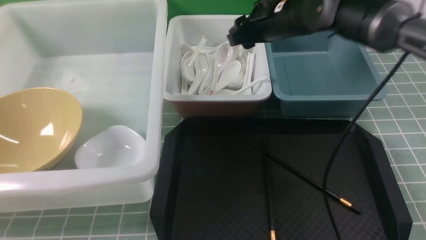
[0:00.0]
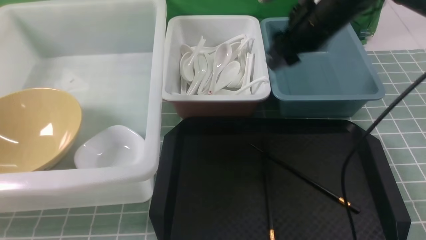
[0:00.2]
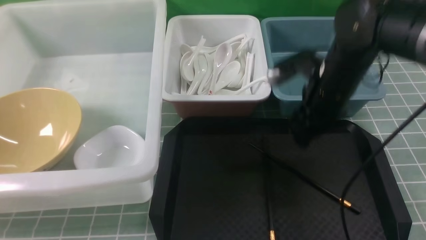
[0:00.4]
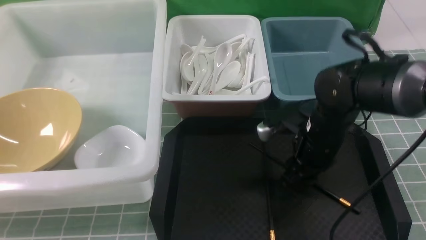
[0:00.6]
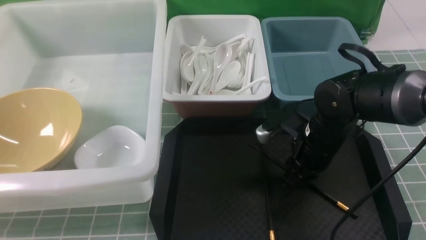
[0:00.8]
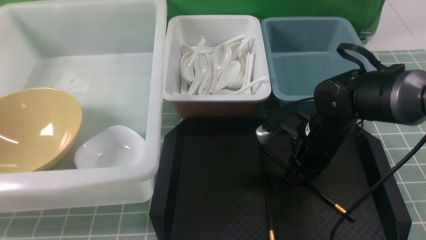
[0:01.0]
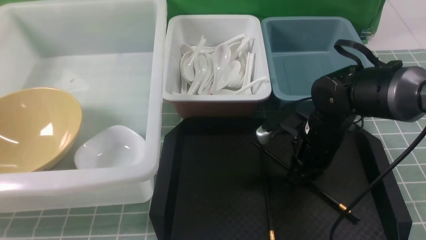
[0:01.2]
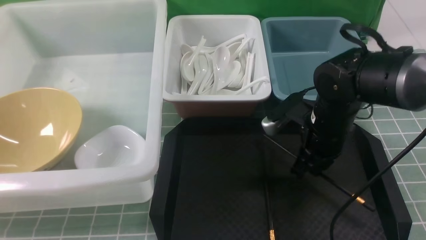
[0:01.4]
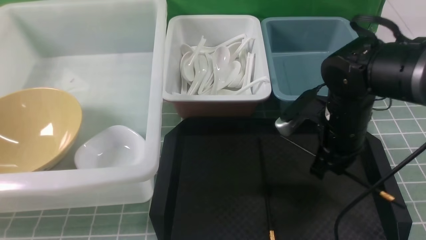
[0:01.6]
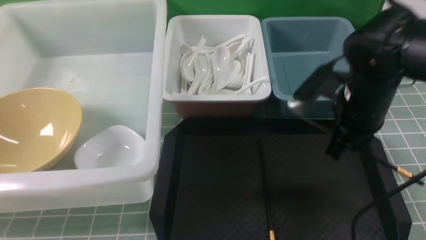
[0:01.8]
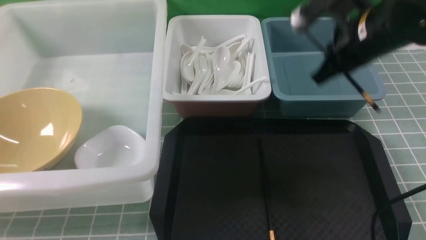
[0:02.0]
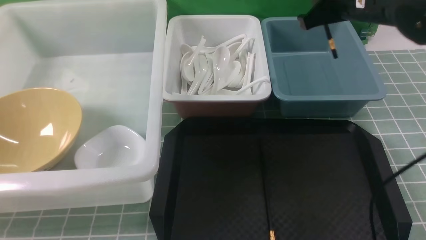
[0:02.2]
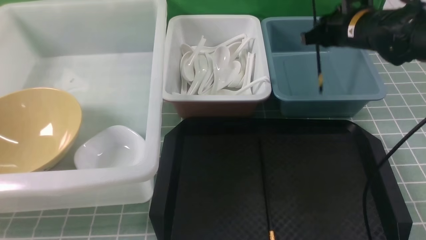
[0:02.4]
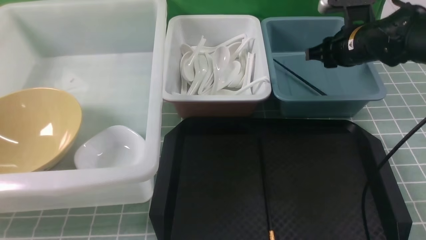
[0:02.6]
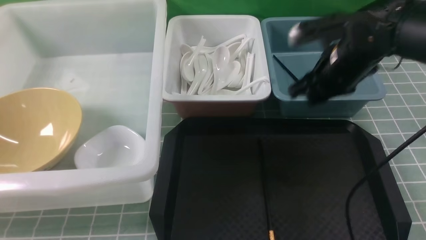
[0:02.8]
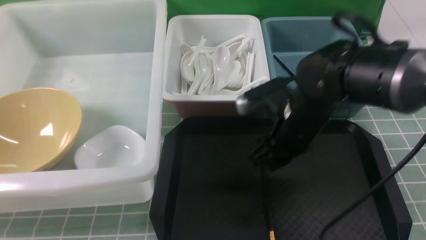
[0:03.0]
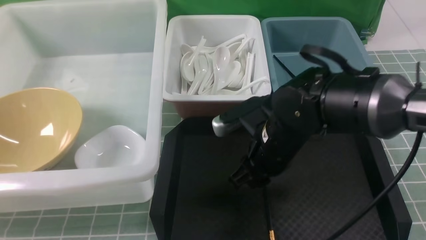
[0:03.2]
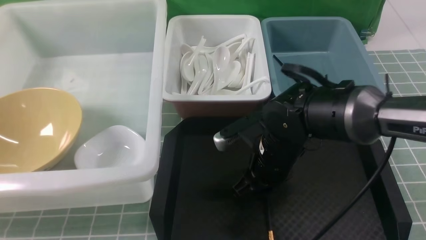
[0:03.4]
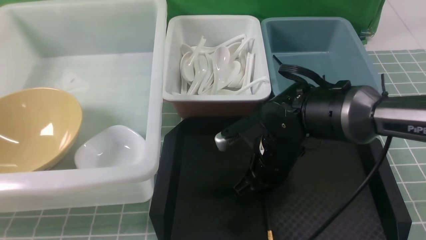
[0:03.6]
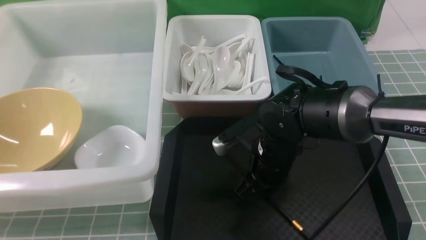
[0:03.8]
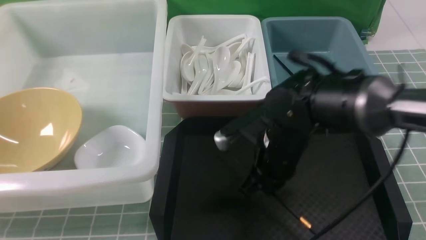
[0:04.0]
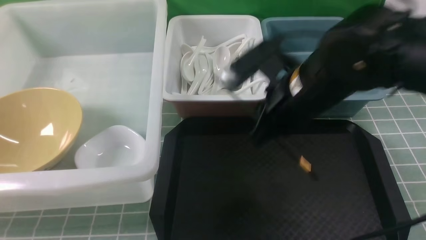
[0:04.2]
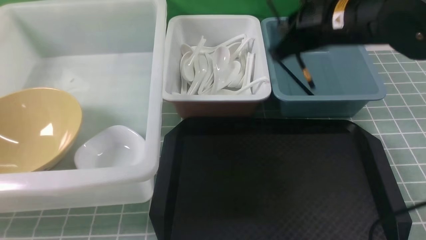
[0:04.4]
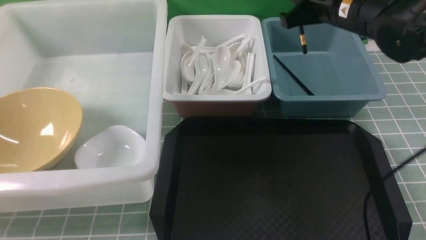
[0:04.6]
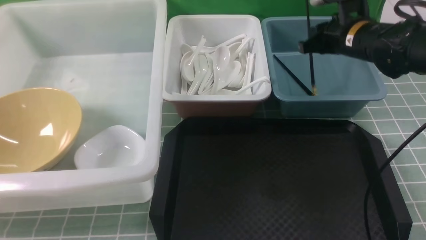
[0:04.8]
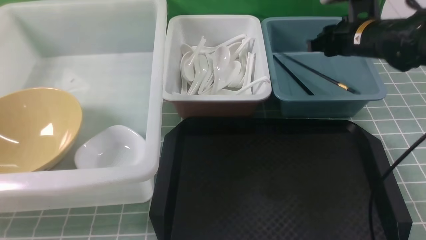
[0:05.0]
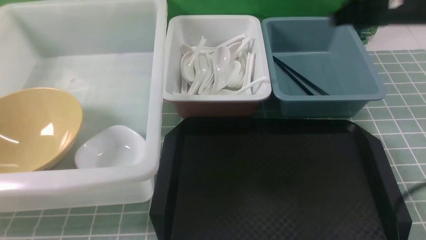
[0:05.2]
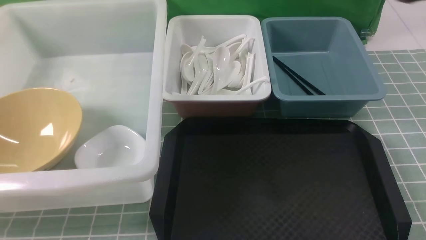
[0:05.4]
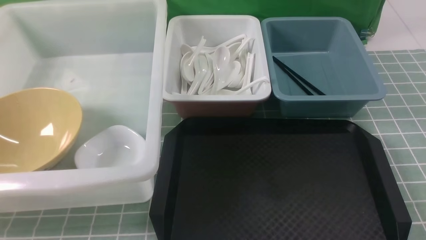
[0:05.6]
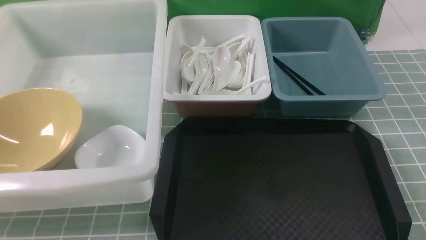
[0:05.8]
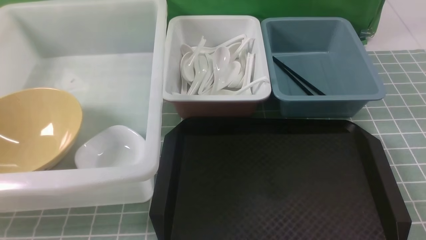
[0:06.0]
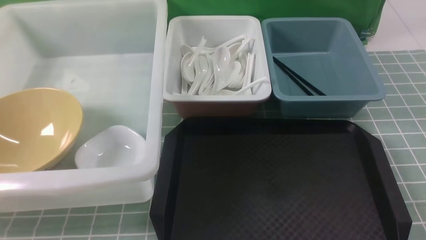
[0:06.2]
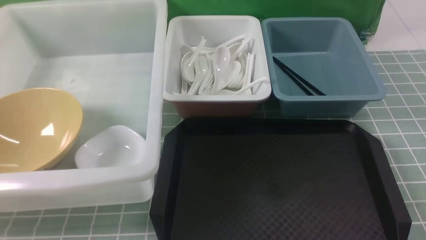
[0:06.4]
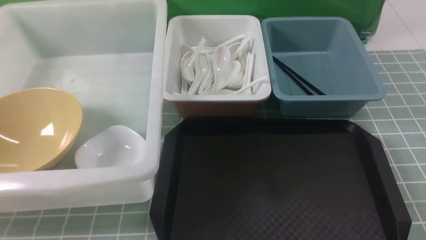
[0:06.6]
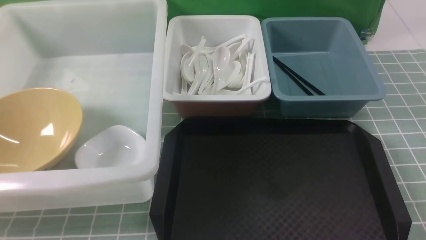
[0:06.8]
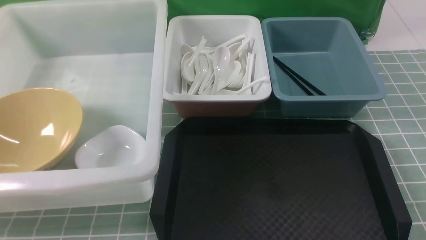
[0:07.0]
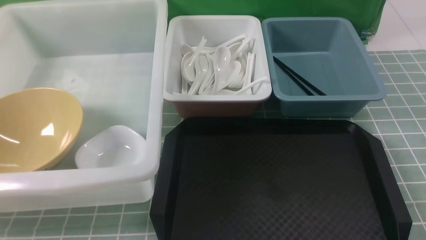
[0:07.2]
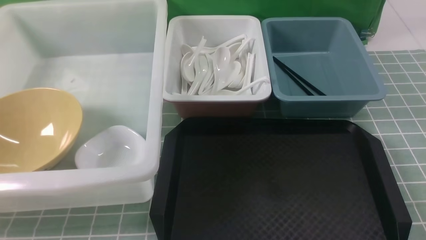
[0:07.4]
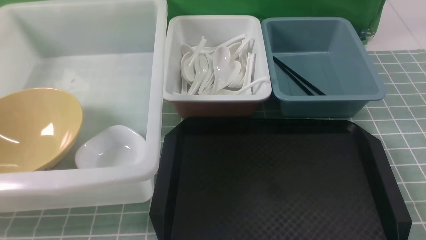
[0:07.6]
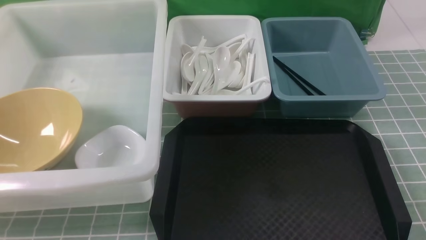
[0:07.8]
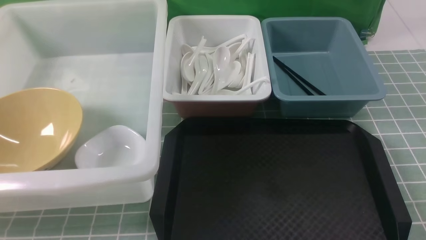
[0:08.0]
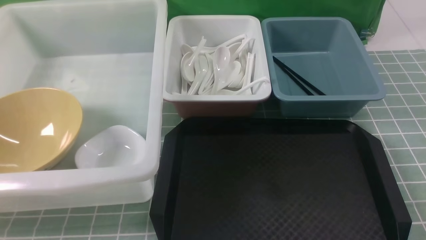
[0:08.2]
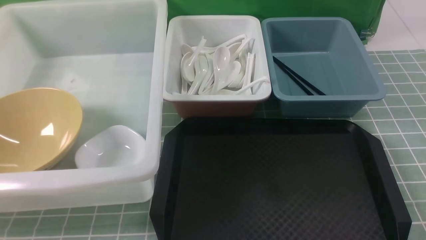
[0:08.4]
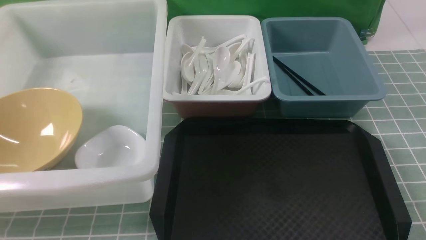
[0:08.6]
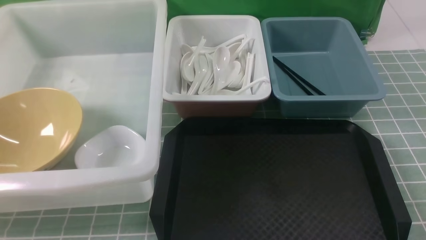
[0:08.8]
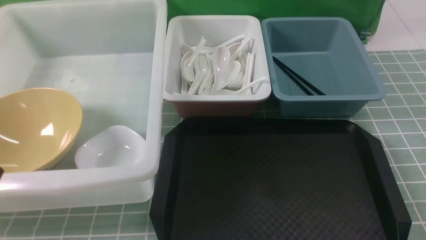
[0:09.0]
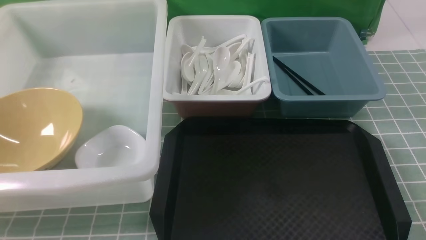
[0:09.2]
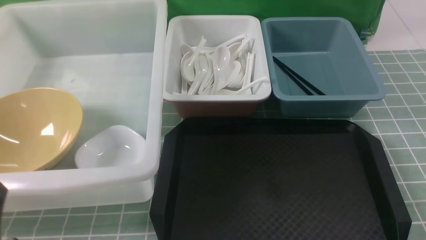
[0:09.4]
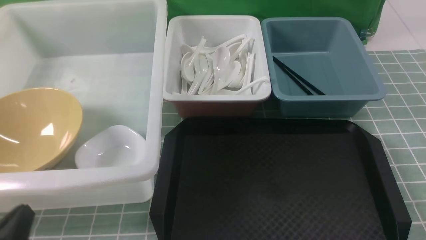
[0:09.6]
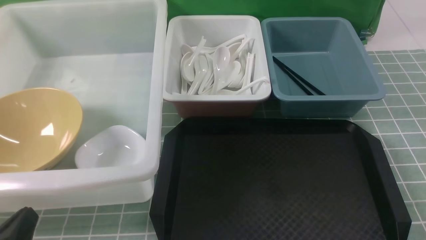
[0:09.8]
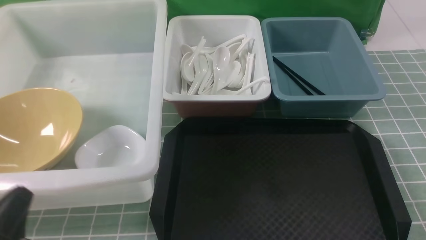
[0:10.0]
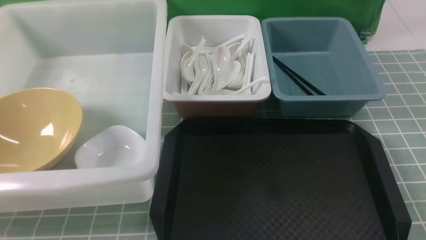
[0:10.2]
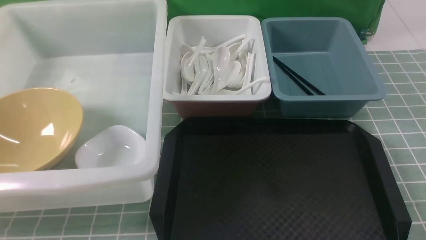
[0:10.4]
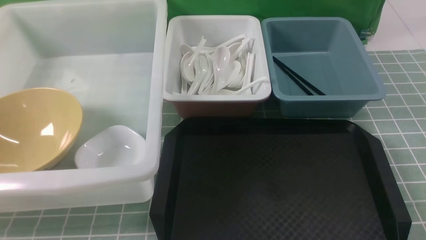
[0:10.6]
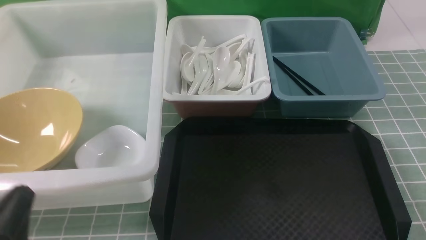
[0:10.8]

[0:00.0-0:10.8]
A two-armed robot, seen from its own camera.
Task of the whole recording: on blue table put chopsticks spoon bowls plates into blue grey white boxes.
Step, 0:00.2 to 0:01.4: use the right arm to grab a chopstick.
Step, 0:01.6 to 0:02.6: use the right arm to put a chopstick into the small storage box on the right.
Step, 0:02.8 to 0:03.8: use the right arm to grab a chopstick.
Step, 0:04.2 to 0:05.0: use the right arm to put a chopstick into the small storage box on the right.
0:00.0 to 0:01.6: The right gripper moves backward, downward and to the right, about 15 cm, and closes up.
0:01.6 to 0:03.0: The right gripper moves to the left, approximately 5 cm, reaches approximately 10 cm forward, then returns, and opens up.
0:03.0 to 0:04.6: The right gripper is displaced upward, forward and to the right by approximately 15 cm, and closes its fingers.
0:04.6 to 0:06.2: The right gripper moves backward, roughly 35 cm.
0:09.2 to 0:10.8: The left gripper swings up and down, some 5 cm each way, with 2 reversals.

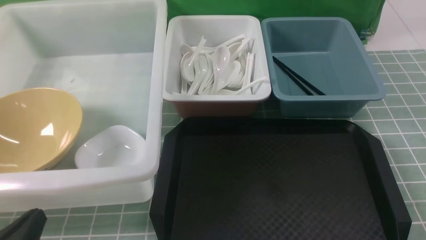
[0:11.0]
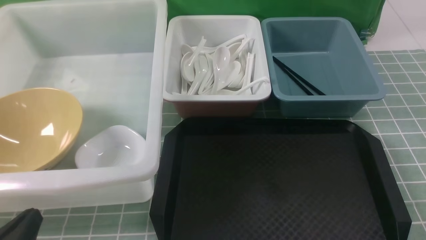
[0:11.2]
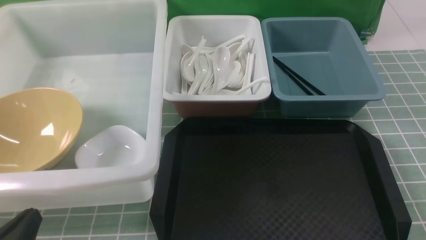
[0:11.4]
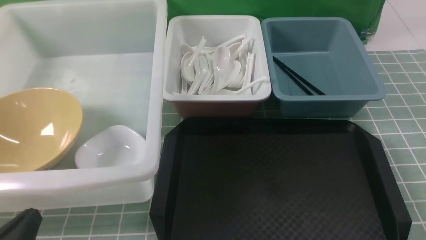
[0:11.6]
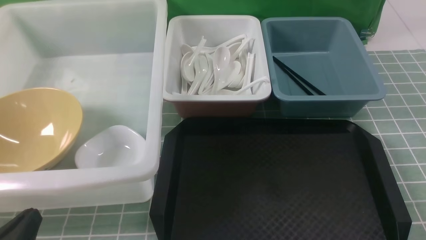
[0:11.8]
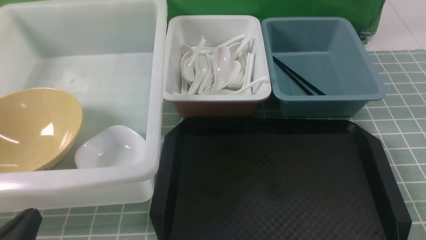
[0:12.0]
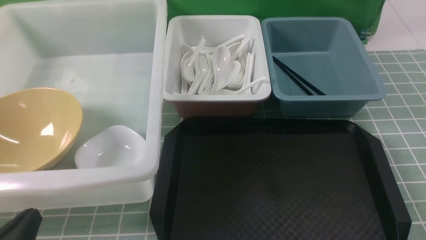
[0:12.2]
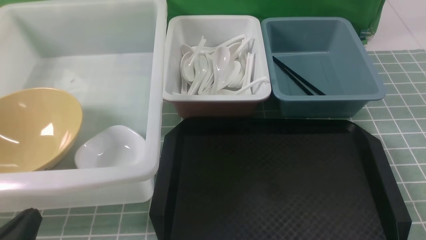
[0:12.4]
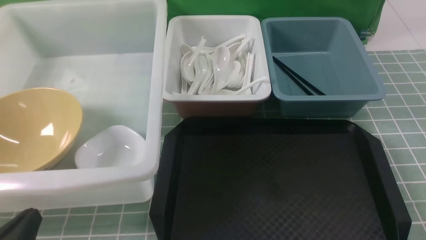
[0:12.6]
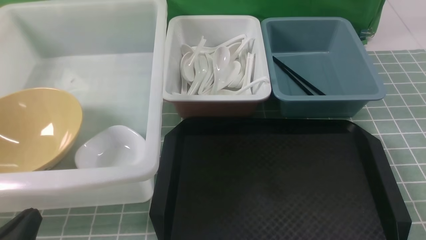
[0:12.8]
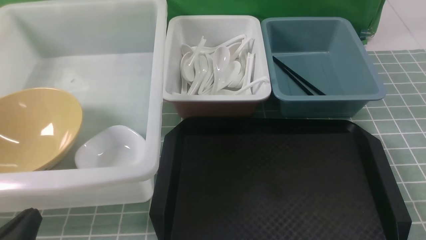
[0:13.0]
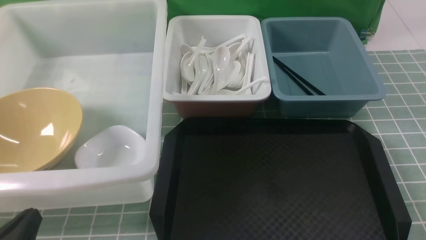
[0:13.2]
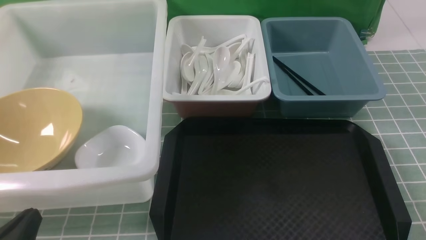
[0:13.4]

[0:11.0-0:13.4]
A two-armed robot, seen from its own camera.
Task of the whole recording: on blue table put chopsticks spoon bowls plates into blue grey white boxes.
0:11.0 to 0:13.4: The two grippers keep their place.
